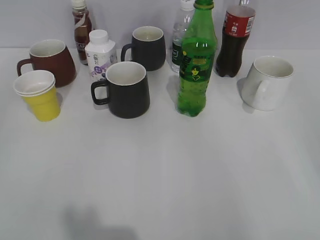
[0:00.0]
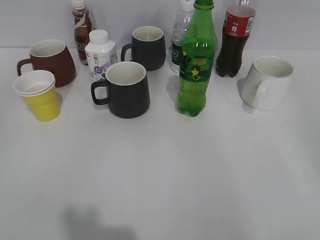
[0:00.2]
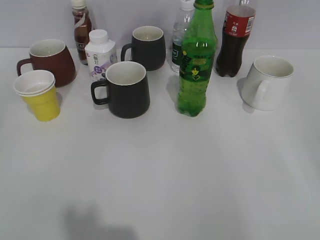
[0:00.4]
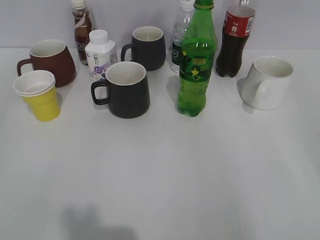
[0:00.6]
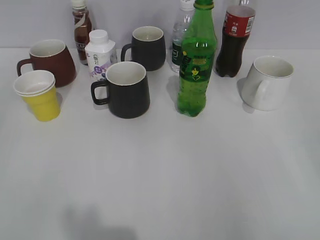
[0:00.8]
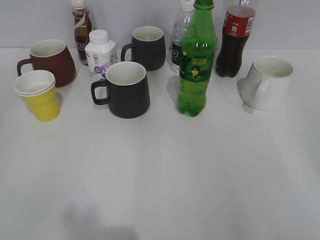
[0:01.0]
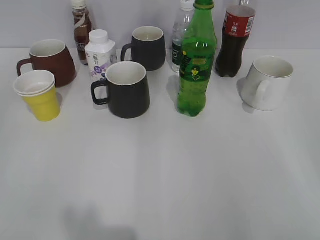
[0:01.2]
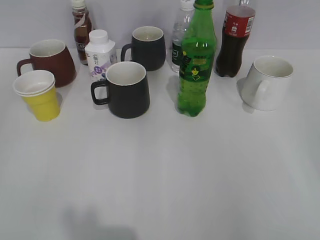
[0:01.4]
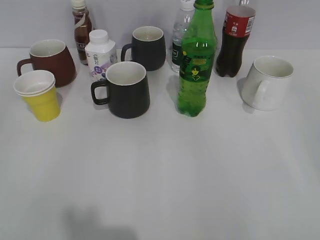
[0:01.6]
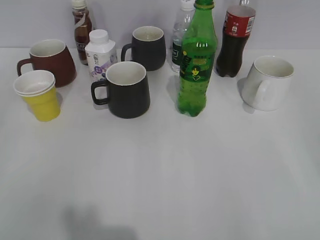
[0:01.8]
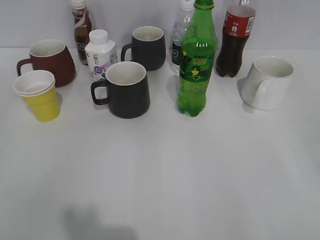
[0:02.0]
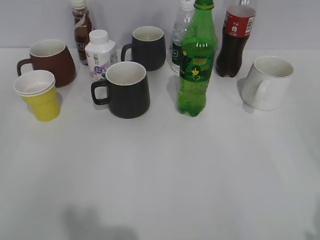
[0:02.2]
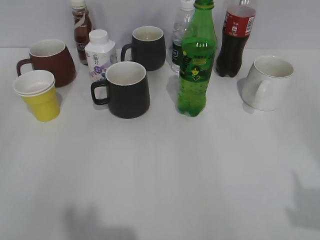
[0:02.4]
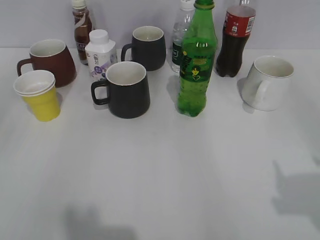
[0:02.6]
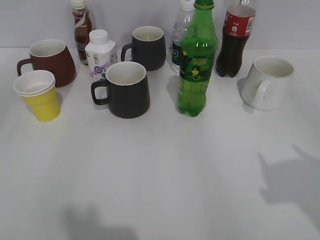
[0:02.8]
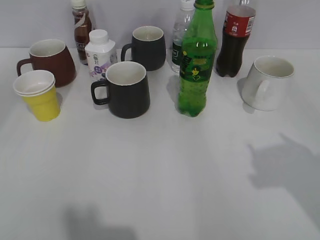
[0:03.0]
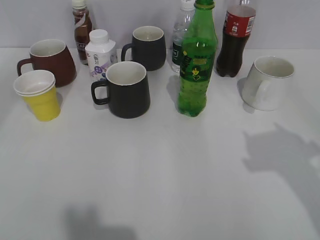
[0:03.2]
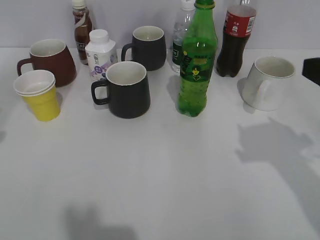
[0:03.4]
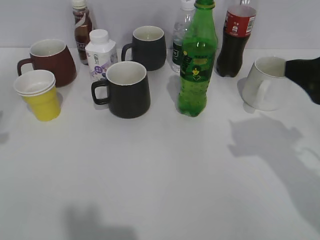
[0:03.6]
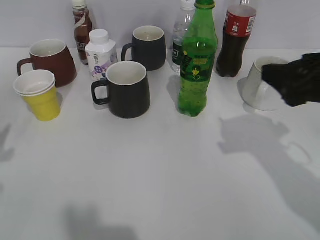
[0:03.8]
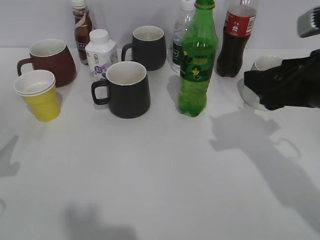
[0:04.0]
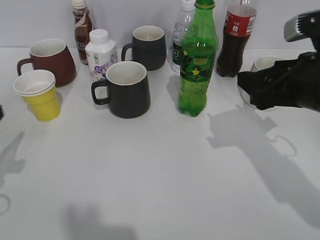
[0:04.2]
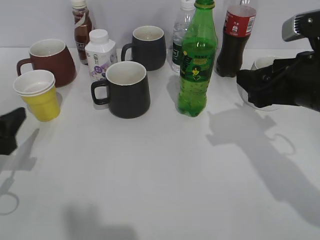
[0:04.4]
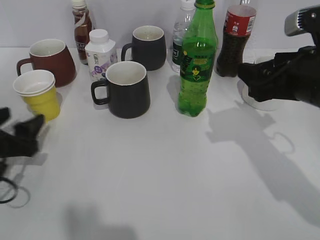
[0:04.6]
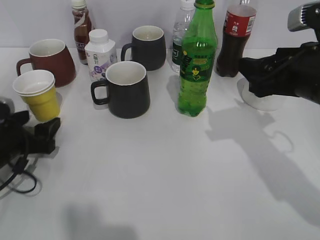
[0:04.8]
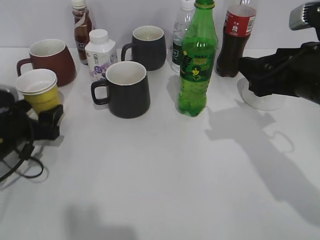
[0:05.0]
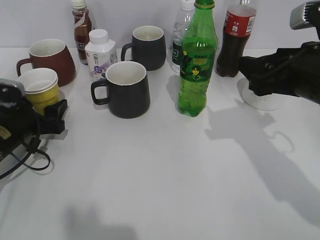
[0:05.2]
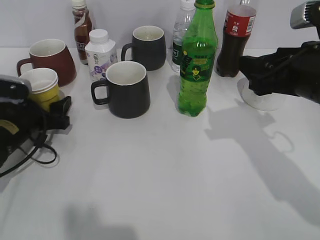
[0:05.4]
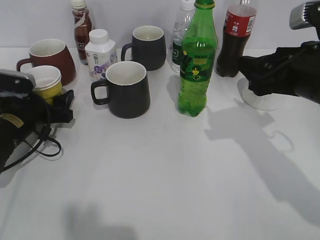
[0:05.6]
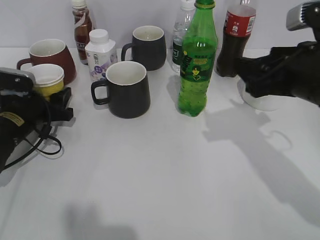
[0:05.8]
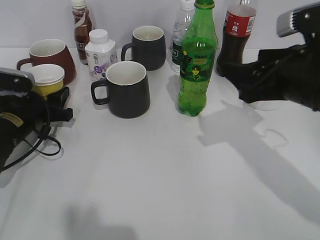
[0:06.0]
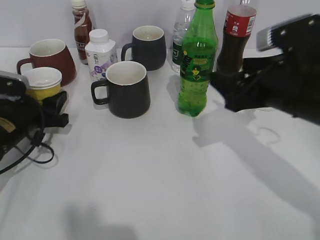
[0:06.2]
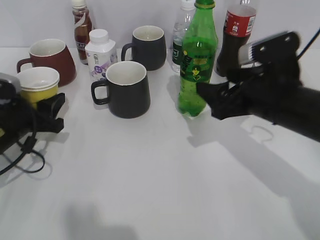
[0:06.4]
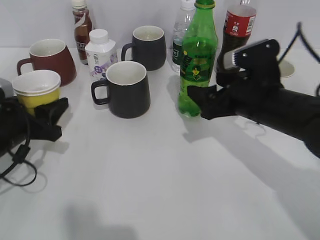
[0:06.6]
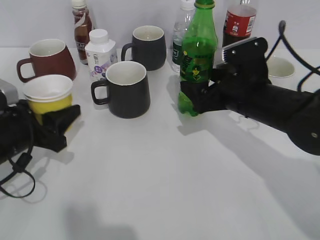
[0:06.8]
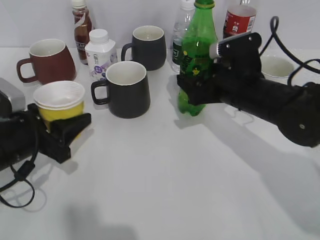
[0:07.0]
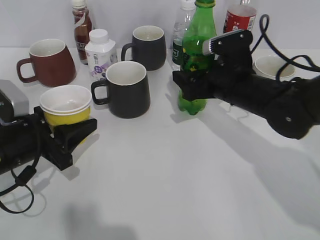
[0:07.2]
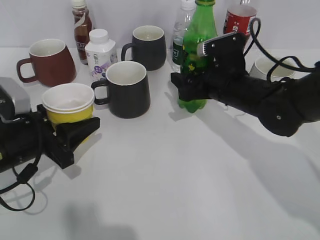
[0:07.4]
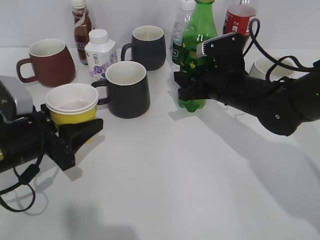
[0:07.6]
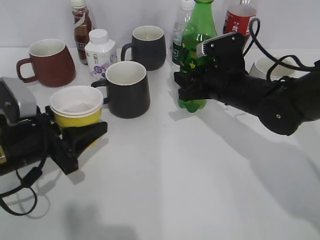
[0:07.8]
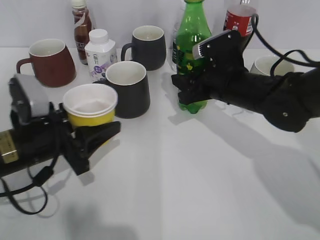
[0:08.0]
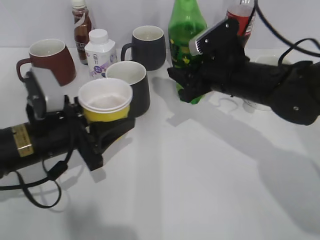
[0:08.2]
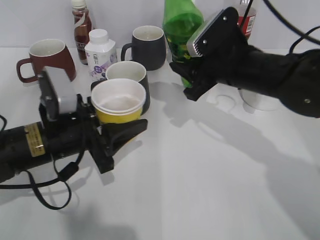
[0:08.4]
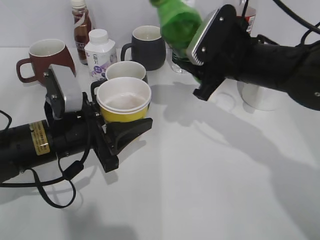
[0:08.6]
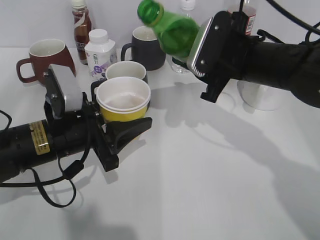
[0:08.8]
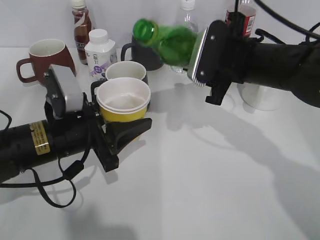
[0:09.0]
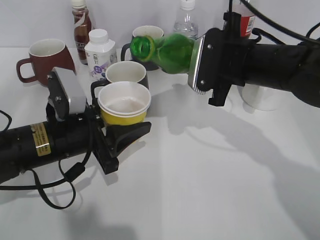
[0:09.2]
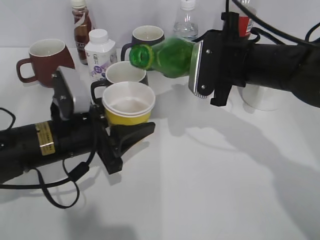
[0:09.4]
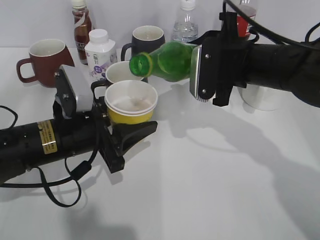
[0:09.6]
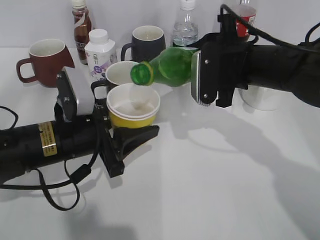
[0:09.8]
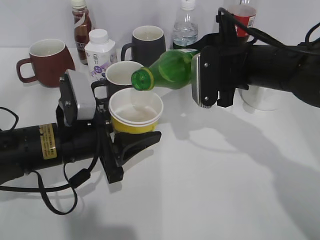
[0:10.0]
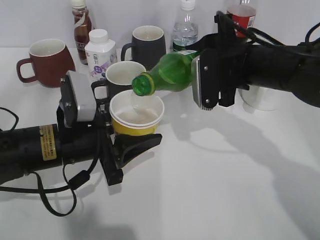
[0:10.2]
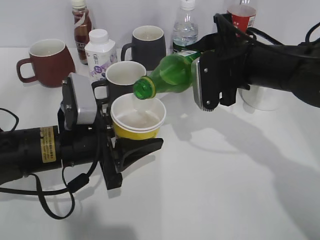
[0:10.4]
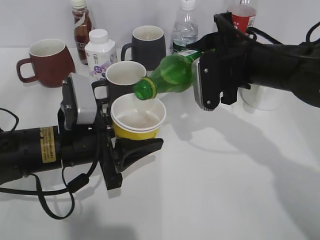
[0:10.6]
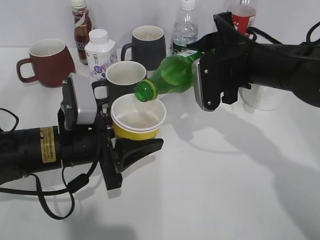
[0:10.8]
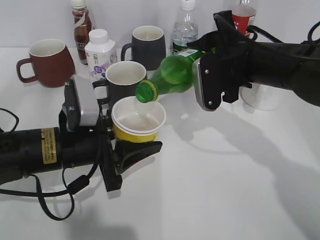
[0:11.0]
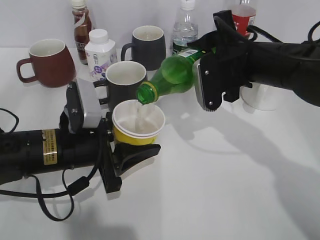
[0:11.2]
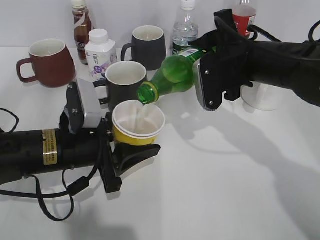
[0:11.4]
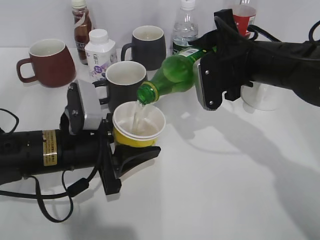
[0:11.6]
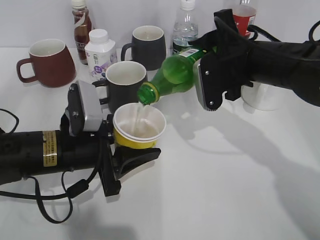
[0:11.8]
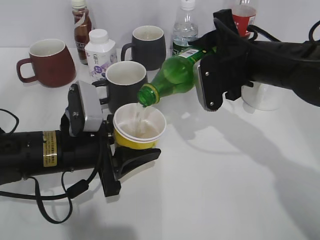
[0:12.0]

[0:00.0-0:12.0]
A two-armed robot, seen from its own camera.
Step, 0:02.0 to 0:05.6: Grasp the yellow paper cup with left gripper.
Step, 0:05.8 to 0:07.6: Grasp the bottle with sprite with right gripper.
0:01.6 to 0:03.0: The right gripper goes about 10 cm forward.
0:03.0 to 0:04.4: The right gripper heads forward, downward and to the left, covering some 15 cm. Meanwhile the left gripper moves downward and forward, roughly 15 cm.
0:04.4 to 0:06.0: The left gripper shifts some 15 cm forward and downward, and closes up.
0:06.0 to 0:07.6: The left gripper moves backward, some 10 cm. The right gripper travels forward, downward and to the left by approximately 15 cm, and closes.
0:07.6 to 0:09.0: The right gripper heads upward, covering some 5 cm; the left gripper moves to the right, roughly 5 cm.
0:10.4 to 0:12.0: The grippers make only small movements.

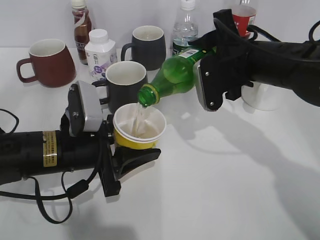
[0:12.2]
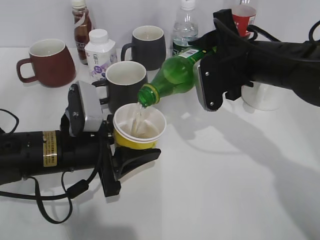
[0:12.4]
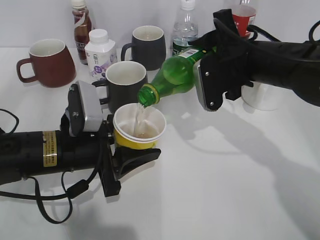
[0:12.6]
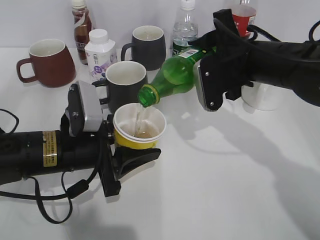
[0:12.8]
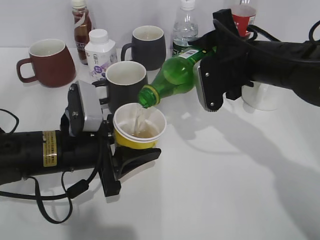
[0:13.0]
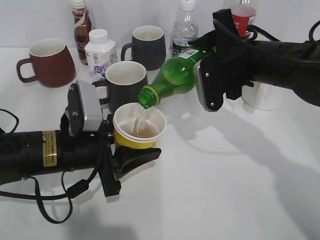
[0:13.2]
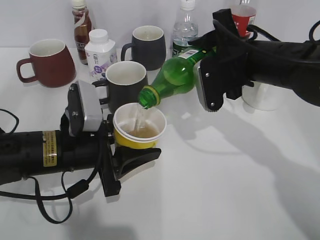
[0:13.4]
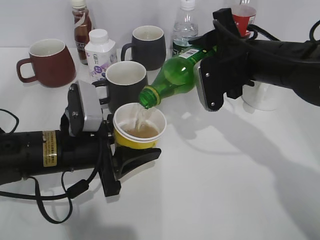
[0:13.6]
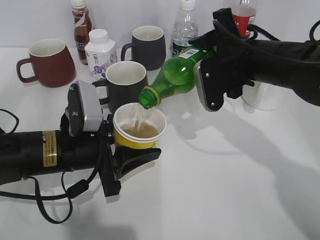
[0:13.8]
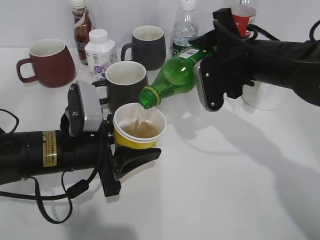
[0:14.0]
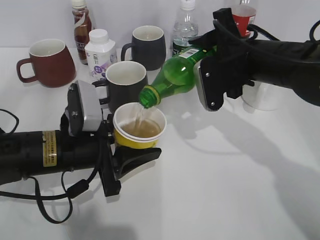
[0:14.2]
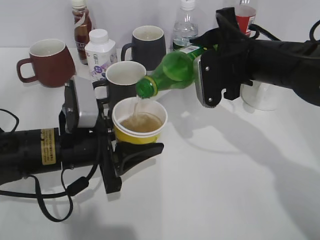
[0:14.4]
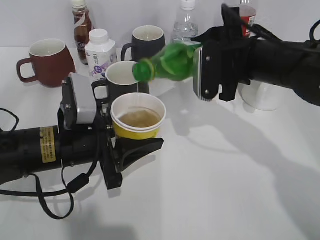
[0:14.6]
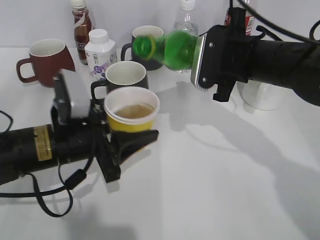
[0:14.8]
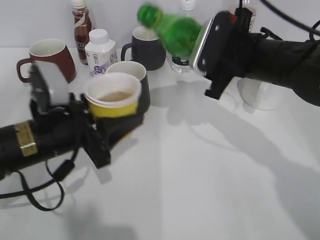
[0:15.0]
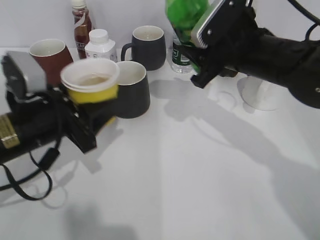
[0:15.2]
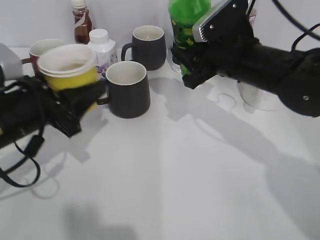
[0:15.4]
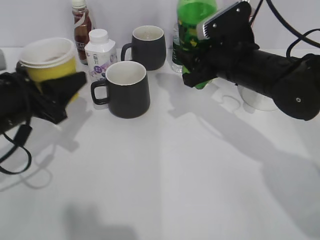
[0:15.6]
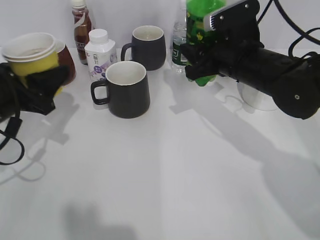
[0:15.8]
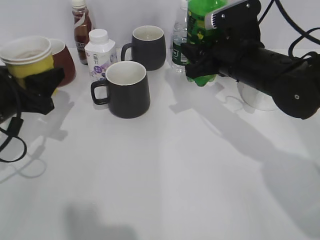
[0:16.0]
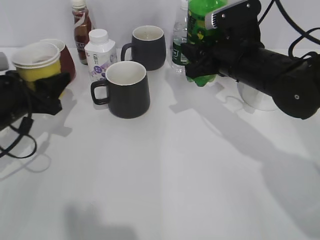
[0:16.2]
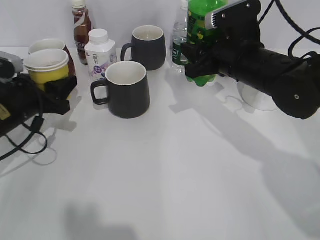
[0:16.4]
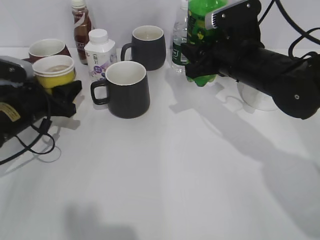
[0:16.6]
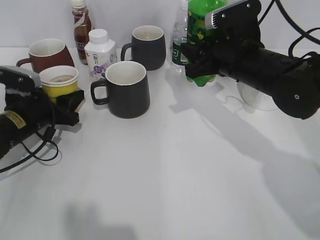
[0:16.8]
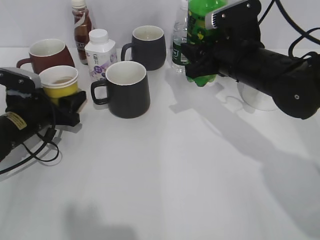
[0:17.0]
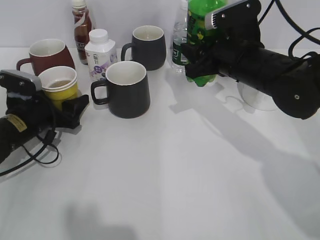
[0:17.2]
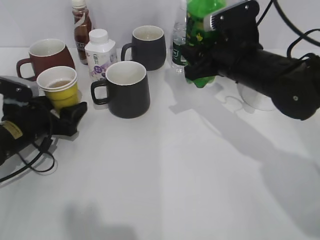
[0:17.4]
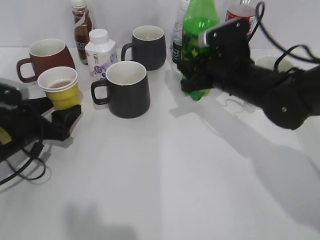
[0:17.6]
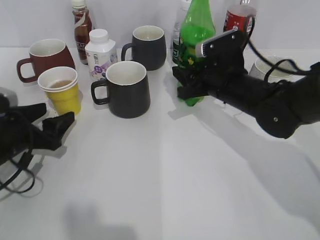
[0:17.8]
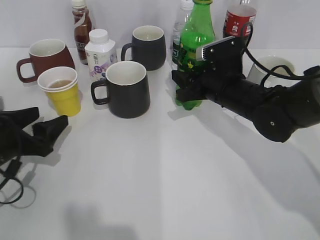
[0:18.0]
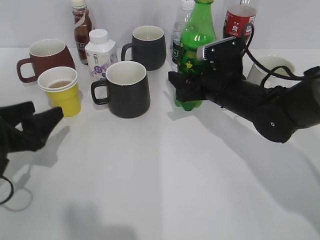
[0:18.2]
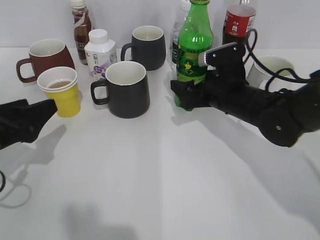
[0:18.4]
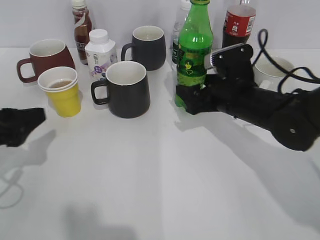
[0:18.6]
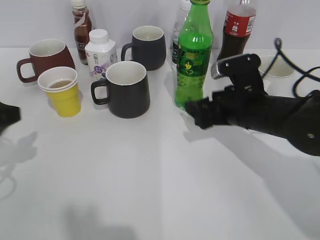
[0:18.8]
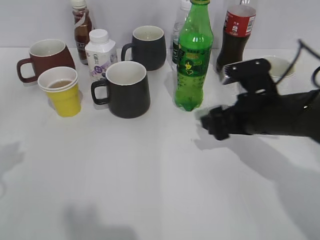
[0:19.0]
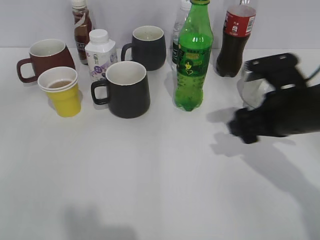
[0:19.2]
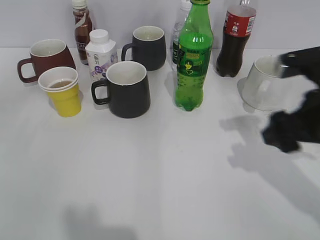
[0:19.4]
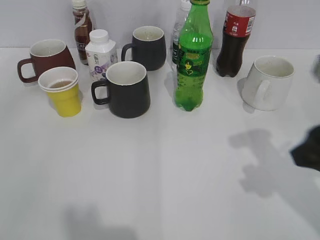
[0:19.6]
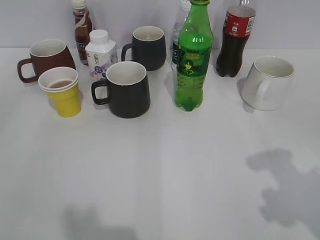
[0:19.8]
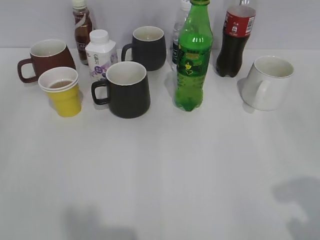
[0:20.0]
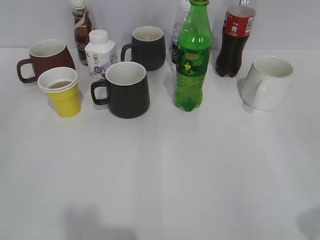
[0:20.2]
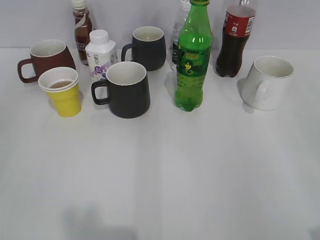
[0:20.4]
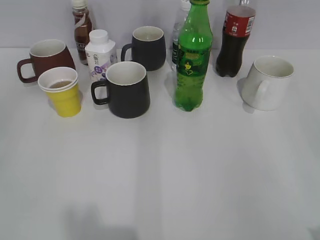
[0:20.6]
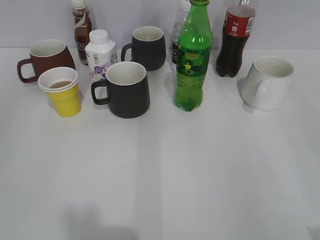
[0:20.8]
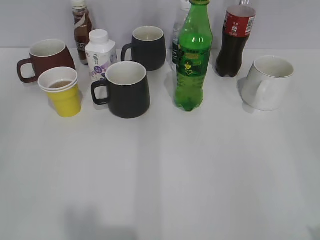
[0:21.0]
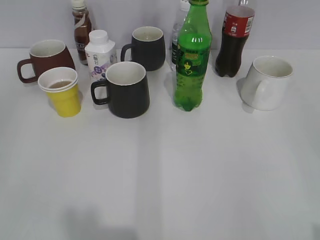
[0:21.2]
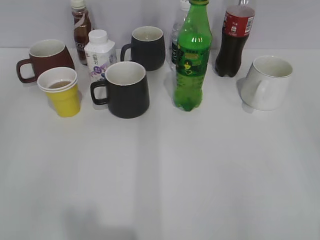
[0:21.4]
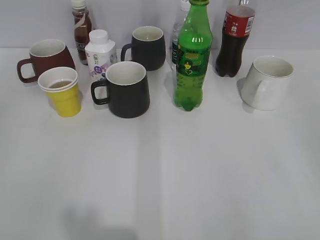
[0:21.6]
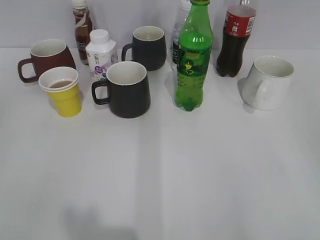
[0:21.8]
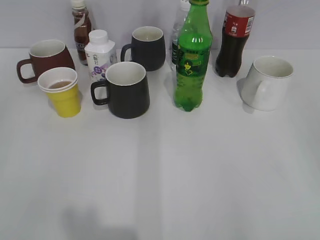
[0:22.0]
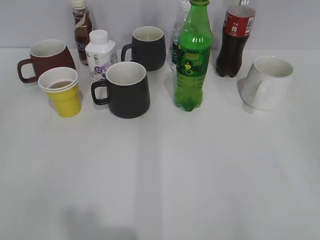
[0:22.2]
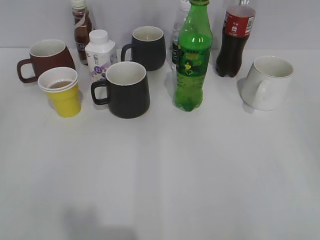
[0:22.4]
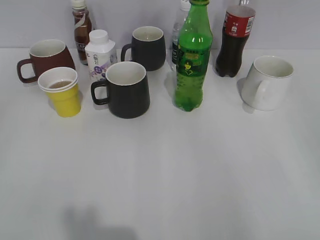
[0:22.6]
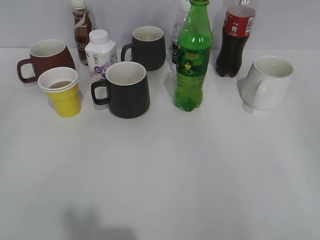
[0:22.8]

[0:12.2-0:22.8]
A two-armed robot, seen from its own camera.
Step, 0:14.8 to 0:17.2: Place the yellow paper cup on the table with left gripper.
Step, 0:17.4 to 0:18.4: Place the sprite bottle on the table with right gripper.
0:12.2 to 0:13.8: Both grippers stay about where they are.
0:13.8 to 0:15.2: The left gripper changes place by about 5 cm.
0:15.2 to 0:16.8: The left gripper goes about 15 cm forward, downward and to the left.
0:16.8 to 0:18.2: The left gripper heads backward, covering some 10 cm, and opens its fingers. Meanwhile the right gripper heads downward, covering roughly 5 cm, and opens its fingers.
0:18.2 to 0:19.8: The left gripper shifts about 25 cm backward and upward, while the right gripper heads backward, upward and to the right, covering roughly 30 cm.
0:19.8 to 0:21.2: The right gripper moves backward and to the right, roughly 15 cm.
